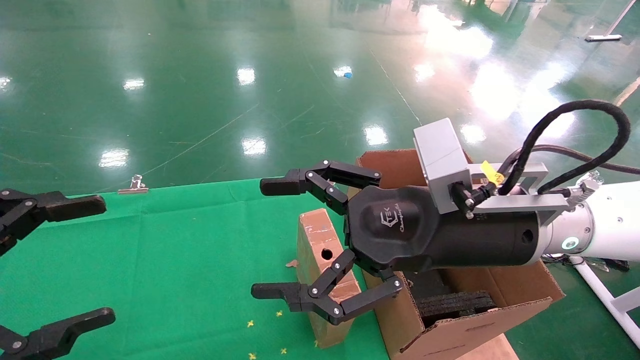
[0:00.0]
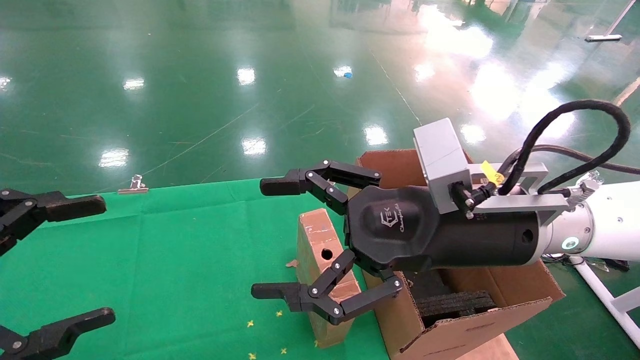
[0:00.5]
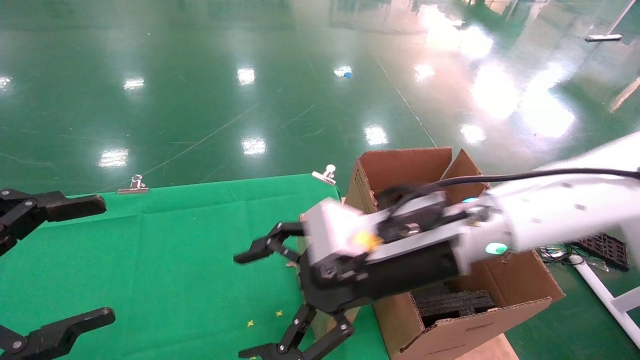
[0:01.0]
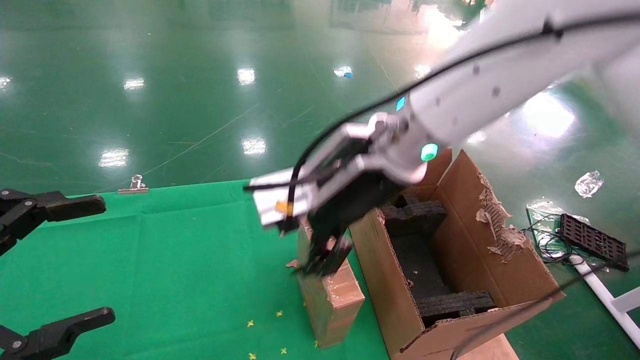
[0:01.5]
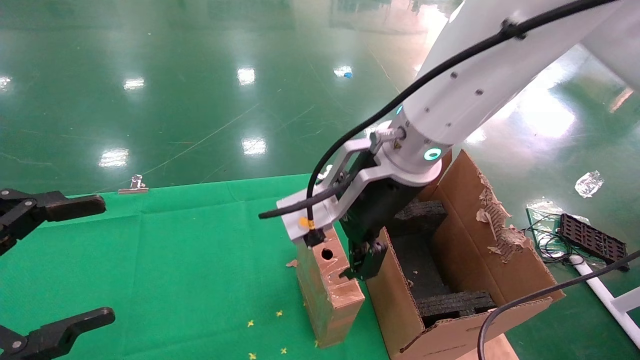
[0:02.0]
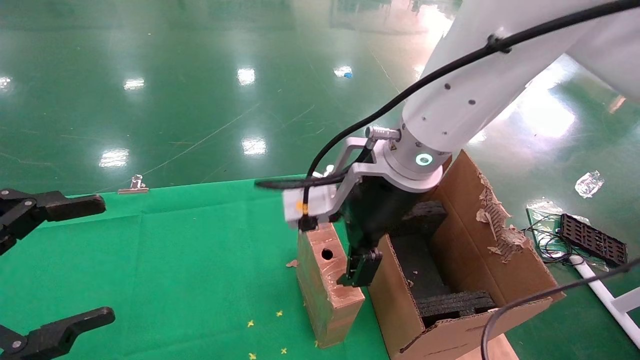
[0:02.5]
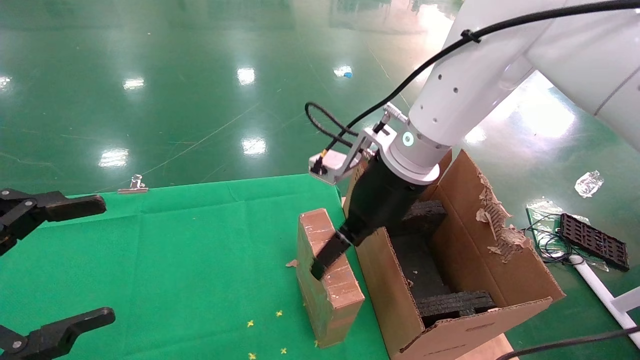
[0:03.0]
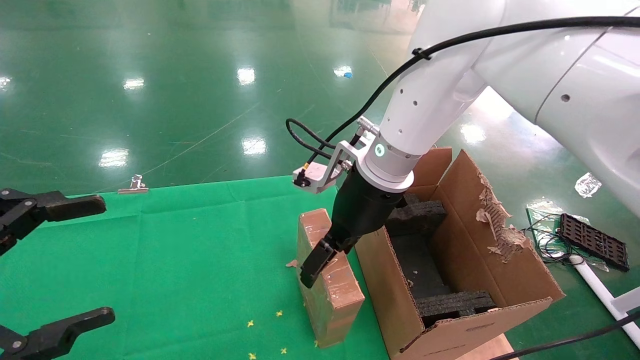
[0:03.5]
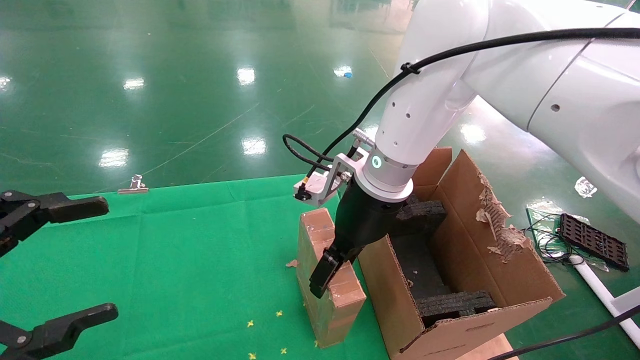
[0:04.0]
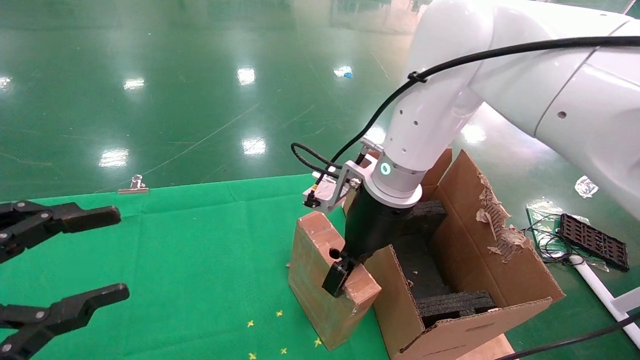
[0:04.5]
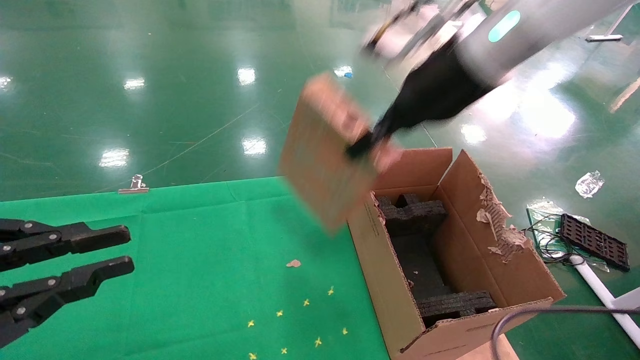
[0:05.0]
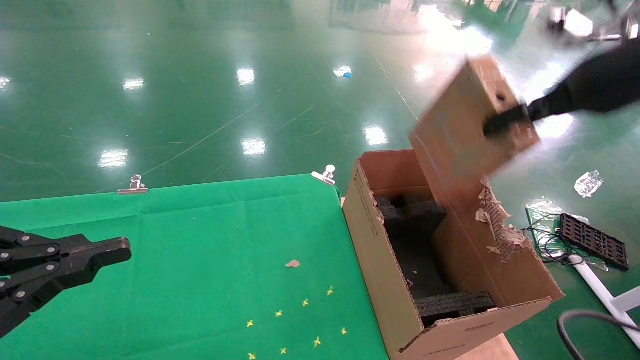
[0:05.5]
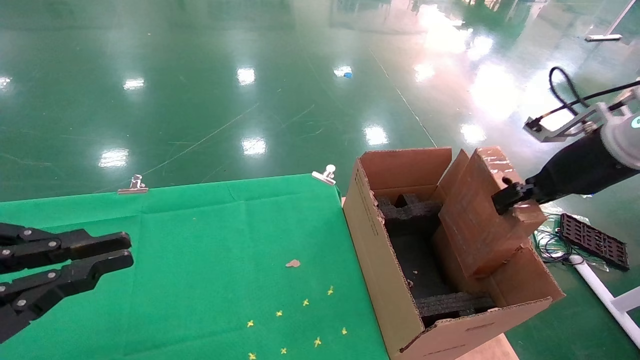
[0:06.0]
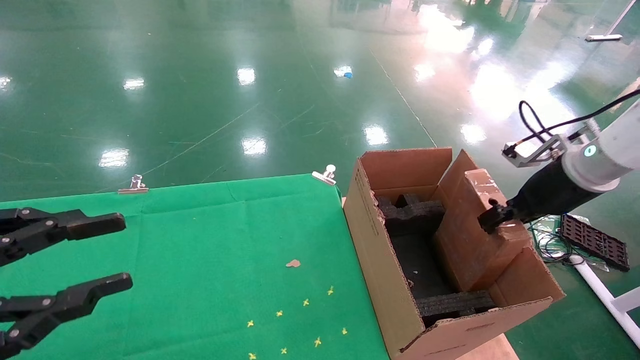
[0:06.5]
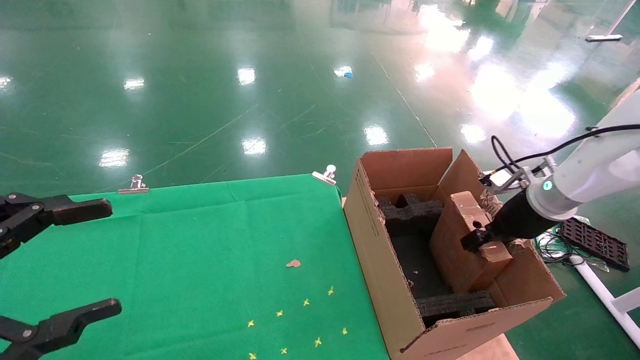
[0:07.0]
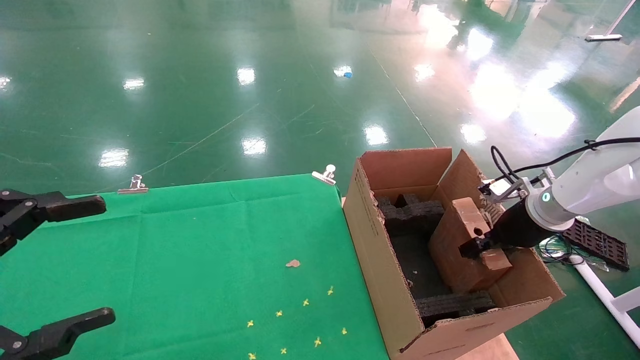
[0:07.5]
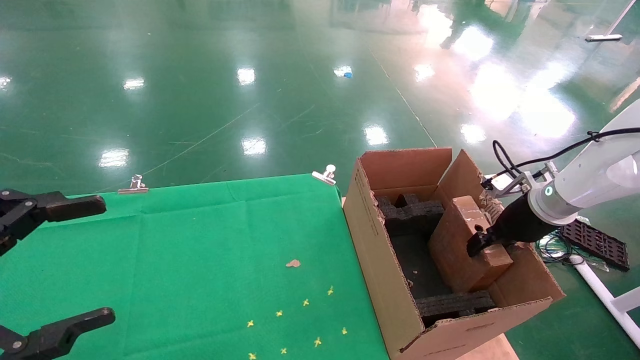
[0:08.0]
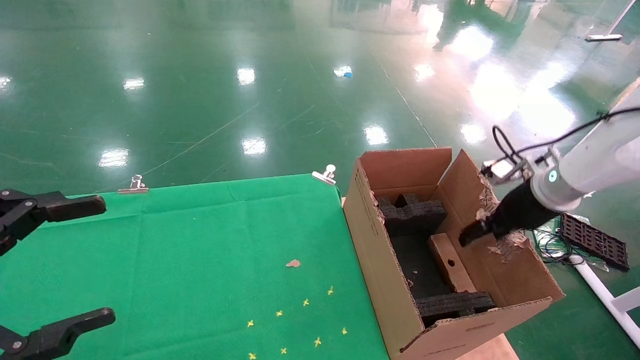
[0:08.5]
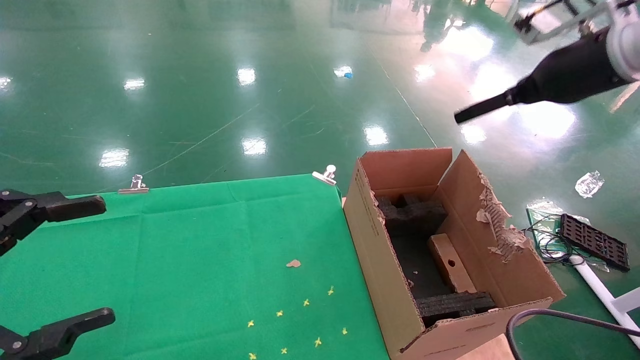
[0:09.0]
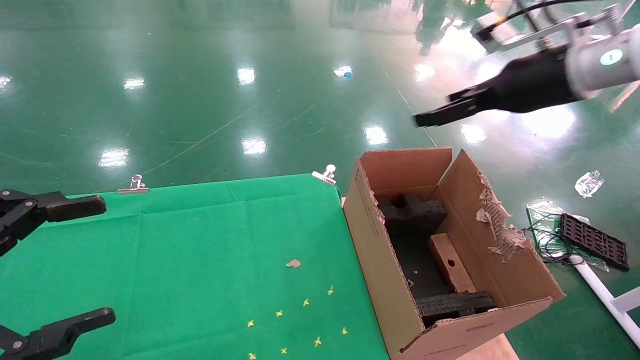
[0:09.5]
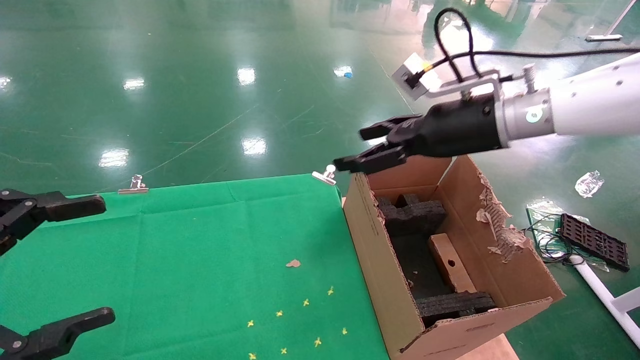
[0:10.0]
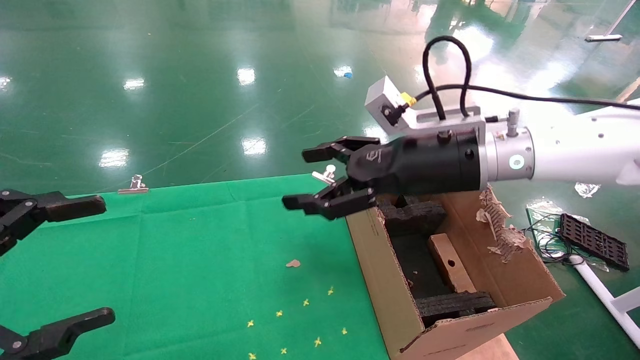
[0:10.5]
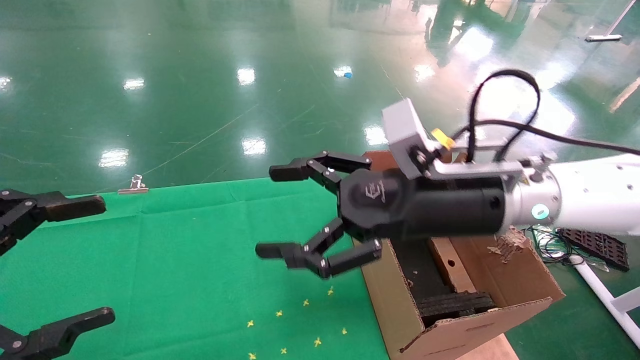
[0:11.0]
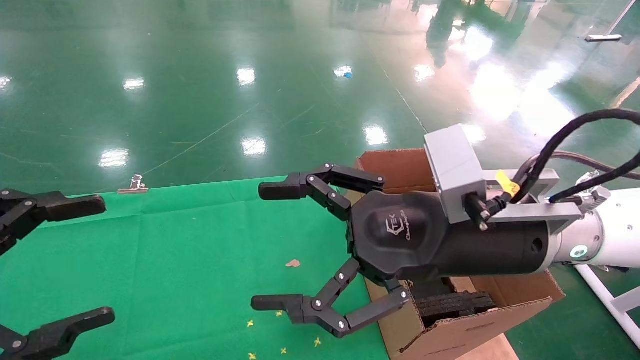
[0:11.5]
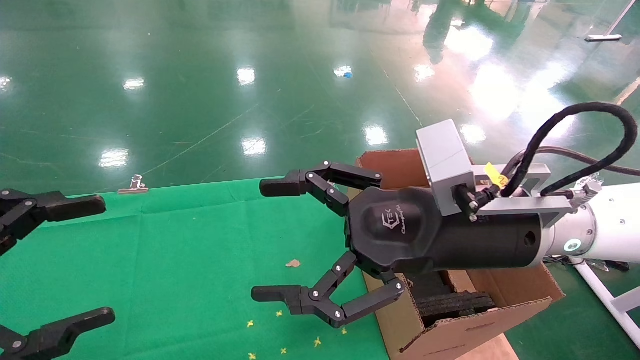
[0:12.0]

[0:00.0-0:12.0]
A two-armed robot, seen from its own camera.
Task of the whole recording: using a robotic arm to pick up a cardboard box and palace it the carton.
Step, 0:01.0 to 0:04.5: Pick up the mouse and the power cord paper box.
Step, 0:05.0 to 0:08.0: Place the mouse and the power cord paper box into the container.
0:00.0 to 0:02.0: The right gripper heads to the left, forward and upward, covering roughly 10 cm.
0:02.0 to 0:04.0: The right gripper heads forward and downward, covering roughly 10 cm.
0:04.0 to 0:06.0: The right gripper heads to the right, covering roughly 30 cm, and closes up. The left gripper closes its fingers.
0:06.0 to 0:08.0: The left gripper opens its fingers, while the right gripper goes some 15 cm downward and forward.
0:08.0 to 0:10.0: The right gripper travels to the left and upward by approximately 20 cm, and opens.
0:10.0 to 0:12.0: The right gripper moves backward, to the left and downward, roughly 15 cm.

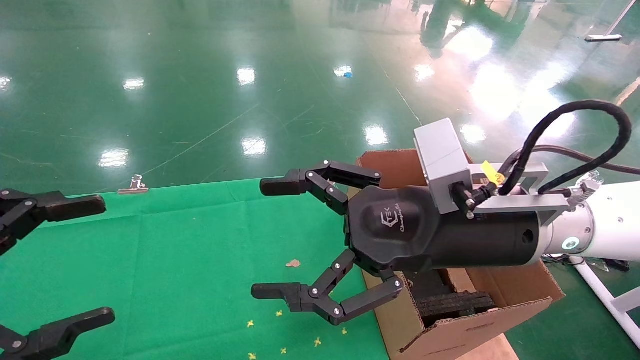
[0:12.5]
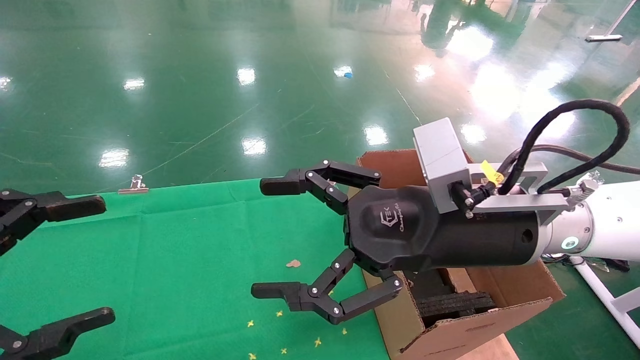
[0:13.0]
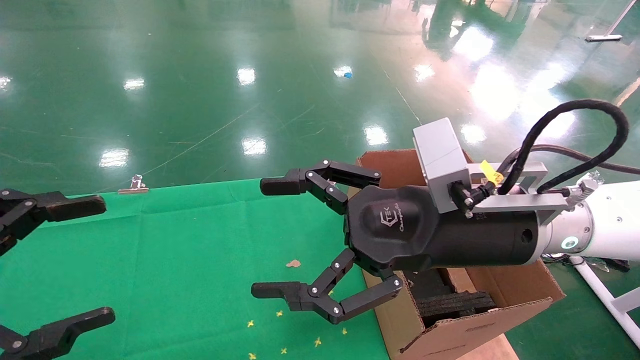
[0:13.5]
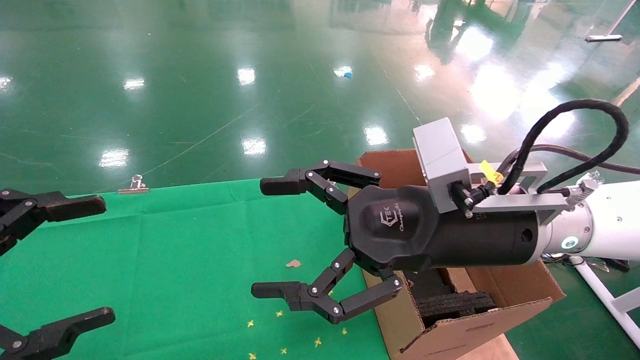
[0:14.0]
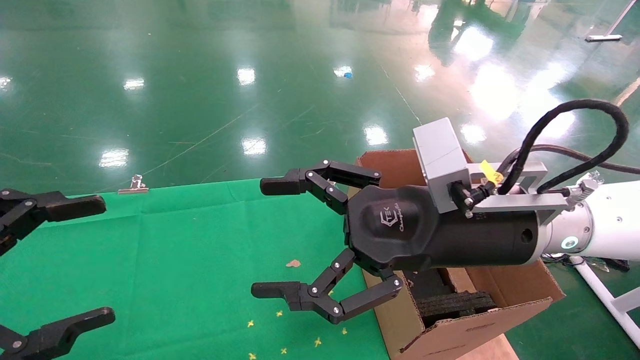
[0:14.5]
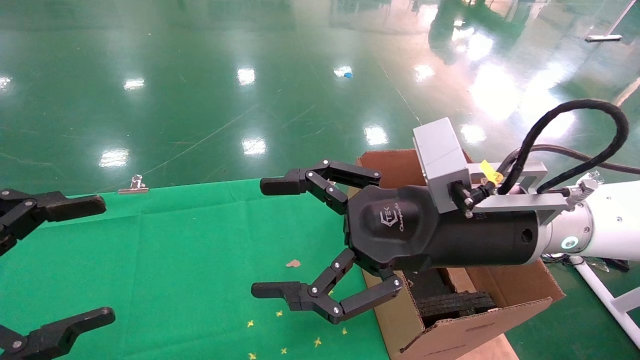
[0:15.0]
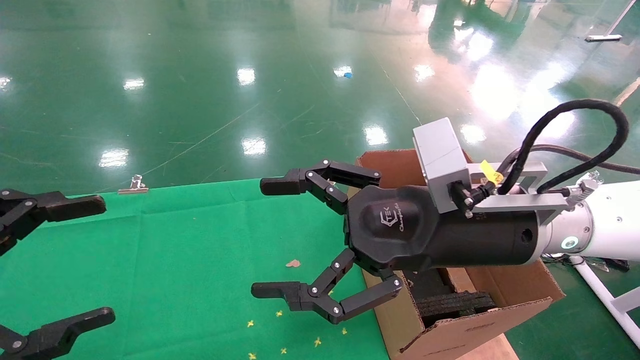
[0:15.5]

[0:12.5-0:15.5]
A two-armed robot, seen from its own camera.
Task of the whole recording: using a robotic arm to pick up a cardboard box and palace it the carton.
0:12.5 to 0:15.5: Both grippers stay put.
